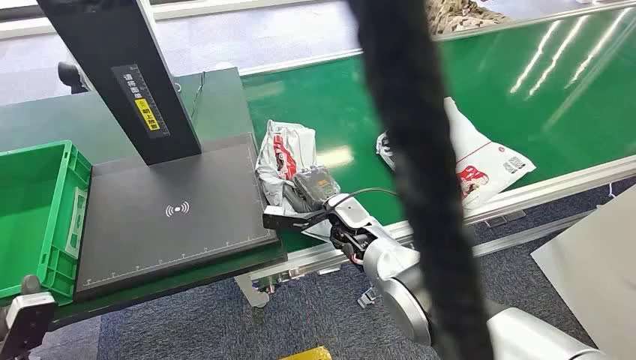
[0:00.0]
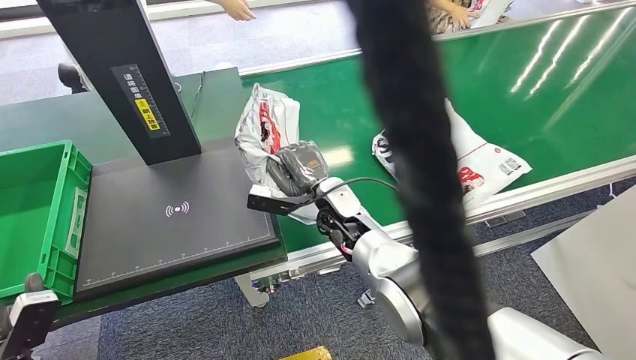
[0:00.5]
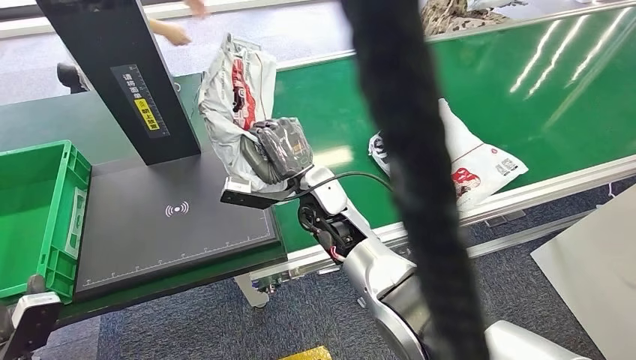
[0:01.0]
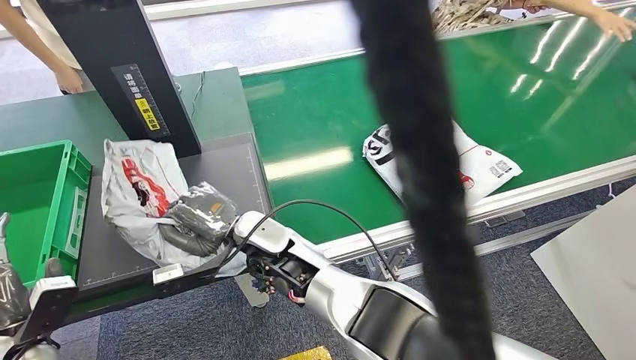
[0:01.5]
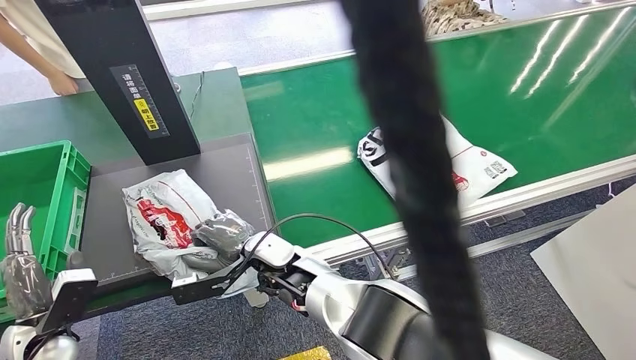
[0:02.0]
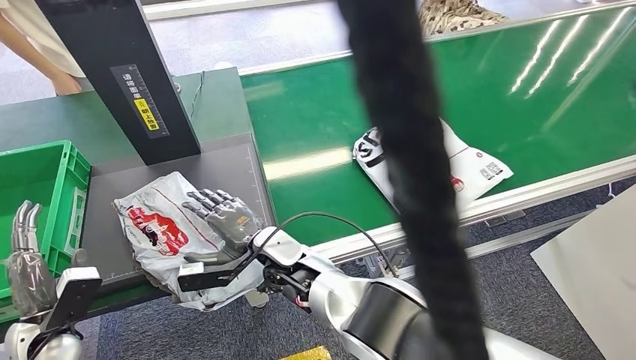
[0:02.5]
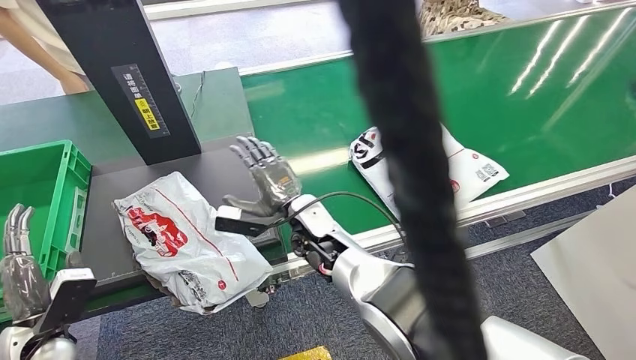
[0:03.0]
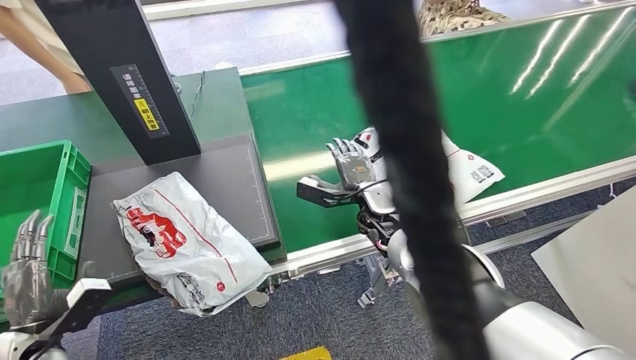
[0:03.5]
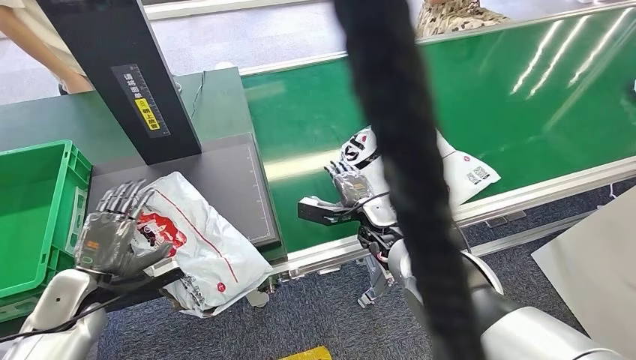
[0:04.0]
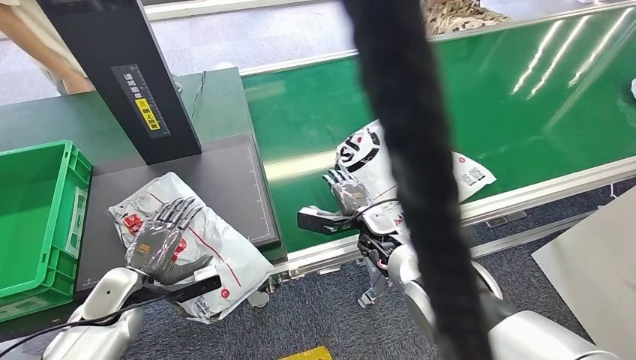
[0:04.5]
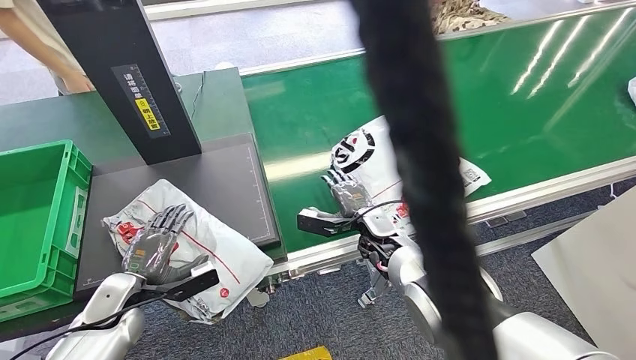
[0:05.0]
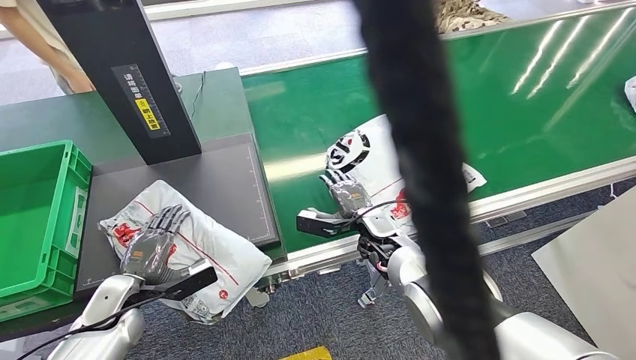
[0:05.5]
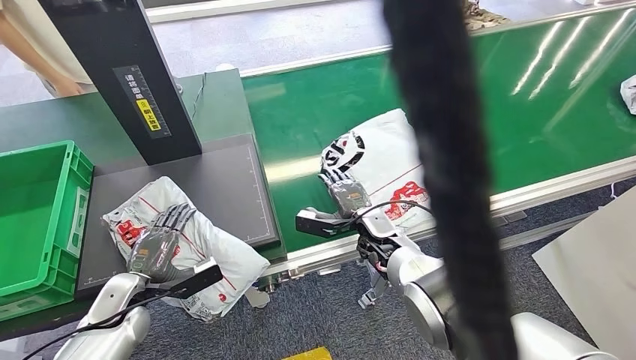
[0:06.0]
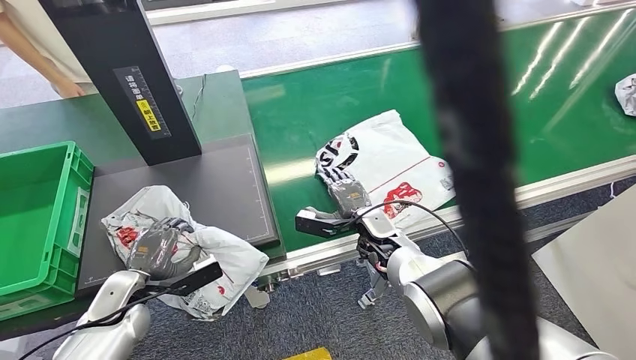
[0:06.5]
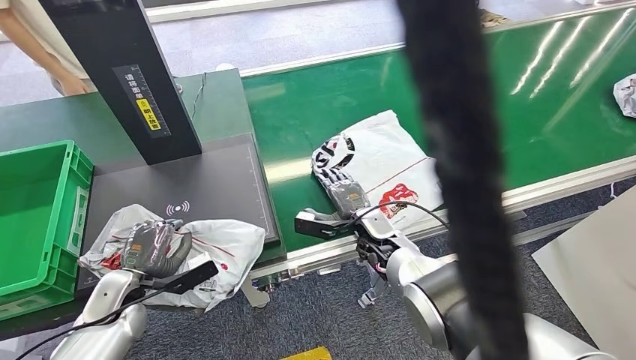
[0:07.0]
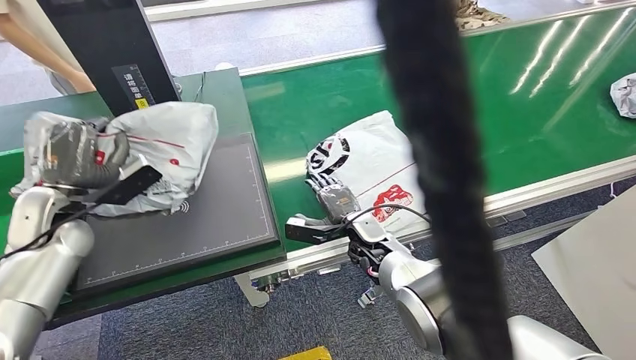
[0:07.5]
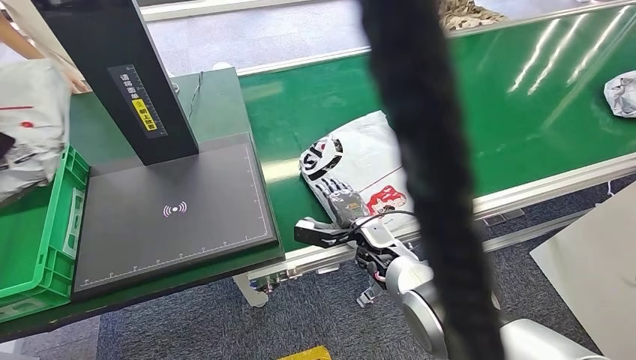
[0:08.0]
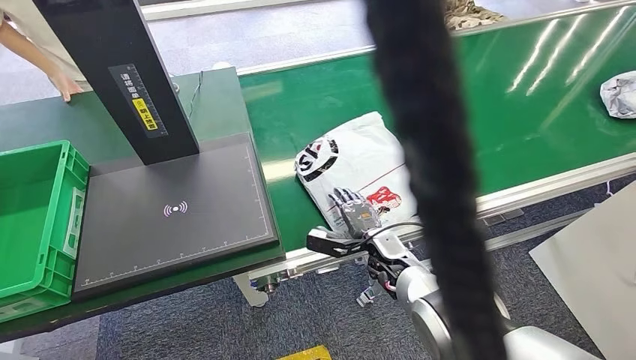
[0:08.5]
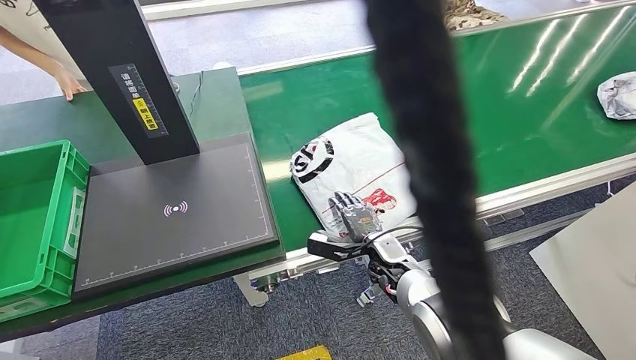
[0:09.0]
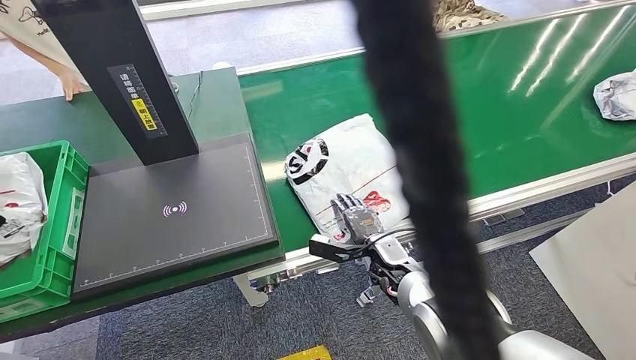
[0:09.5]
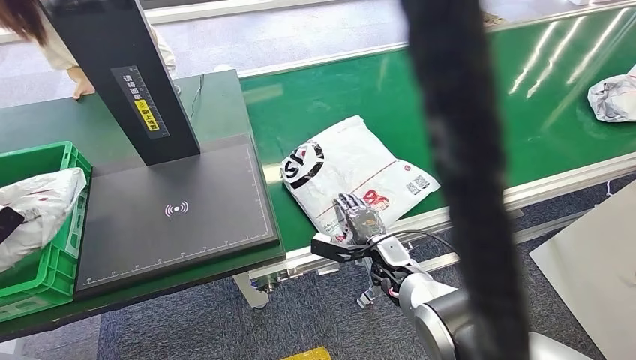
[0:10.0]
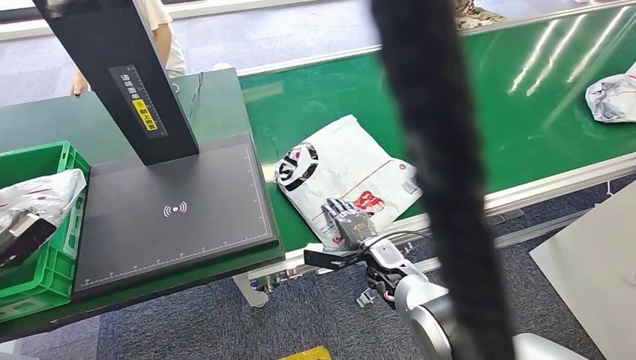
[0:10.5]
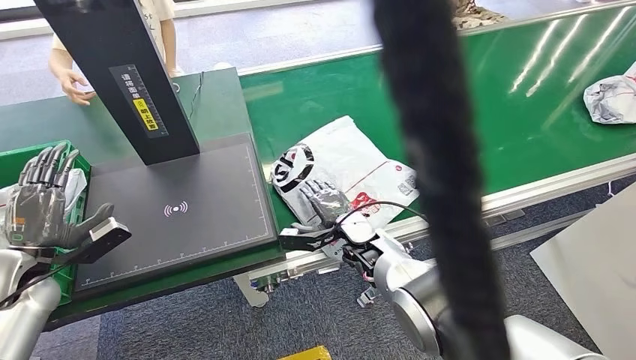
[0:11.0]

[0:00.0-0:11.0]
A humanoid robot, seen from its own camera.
Step, 0:00.0 to 0:01.0: Pick up the package from the conveyor belt.
Step, 0:01.5 to 0:03.0: Place the package onto the inbound machine.
Step, 0:03.5 to 0:07.0: Pick up the package from the inbound machine.
Step, 0:08.0 to 0:09.5: Place the package into the parcel locker.

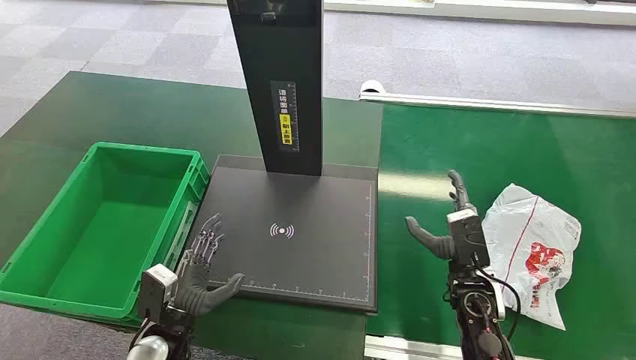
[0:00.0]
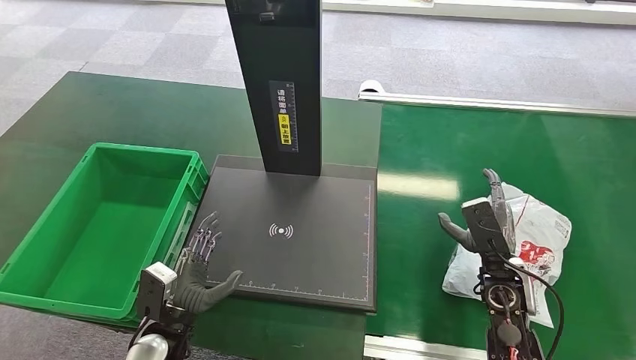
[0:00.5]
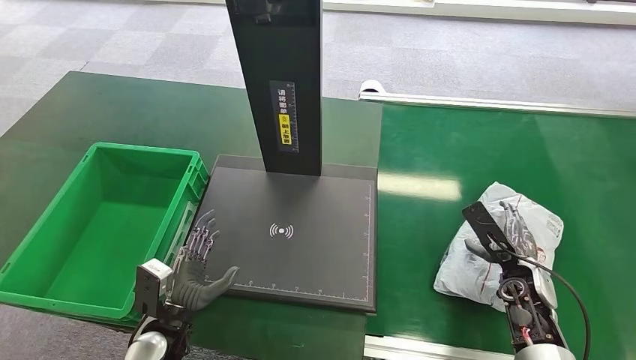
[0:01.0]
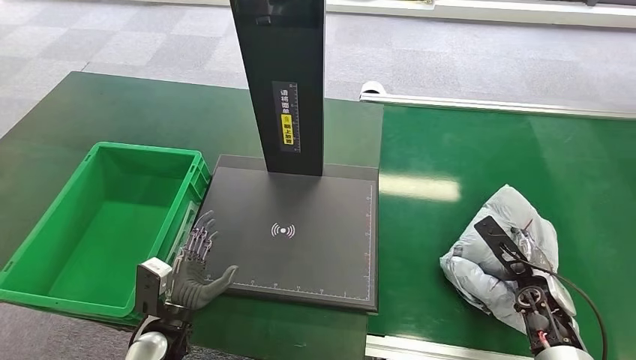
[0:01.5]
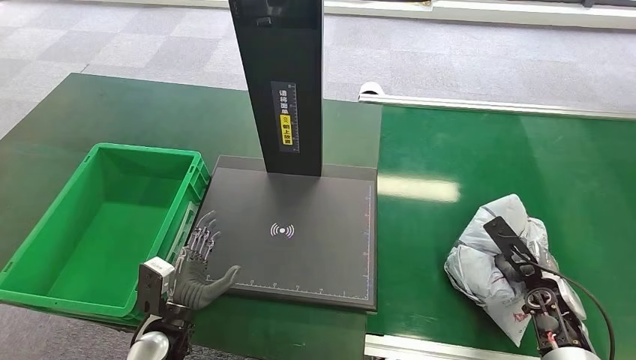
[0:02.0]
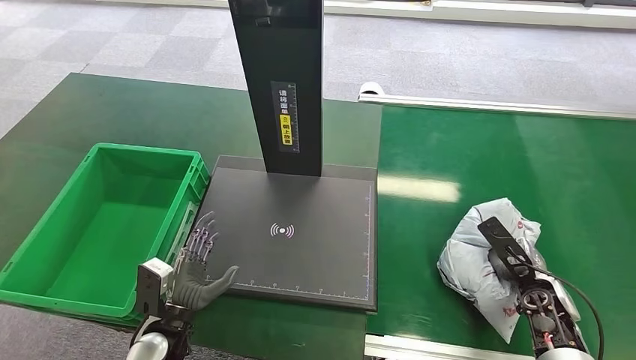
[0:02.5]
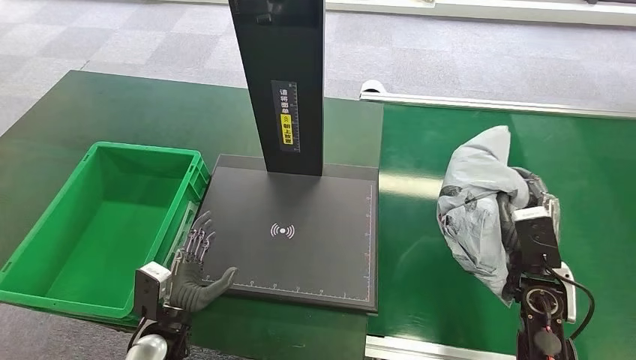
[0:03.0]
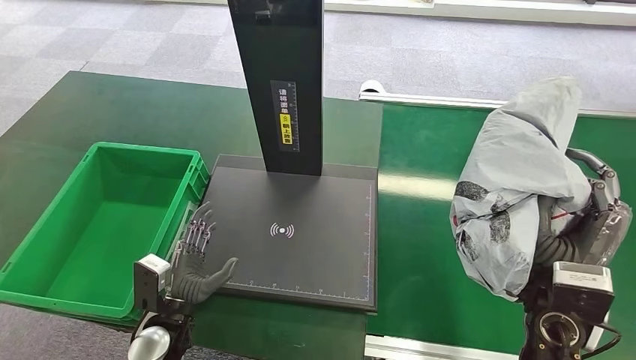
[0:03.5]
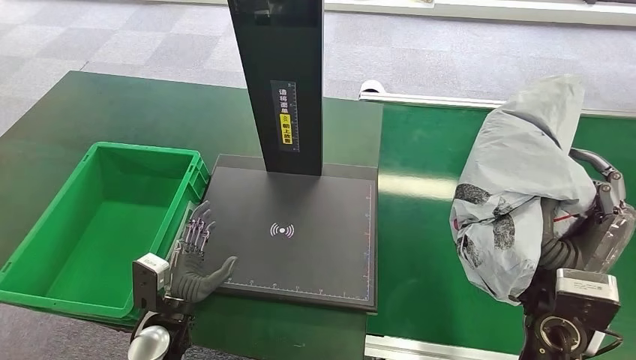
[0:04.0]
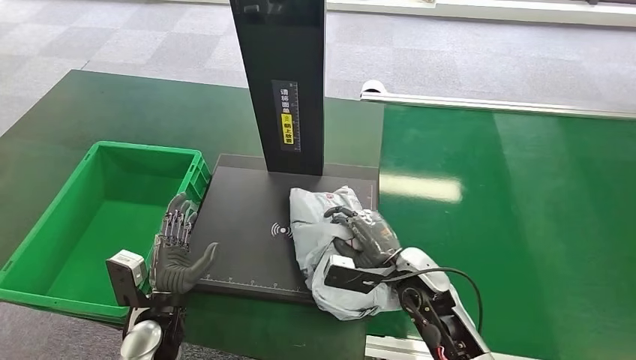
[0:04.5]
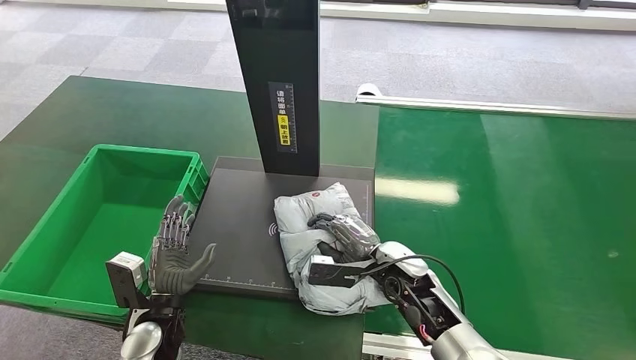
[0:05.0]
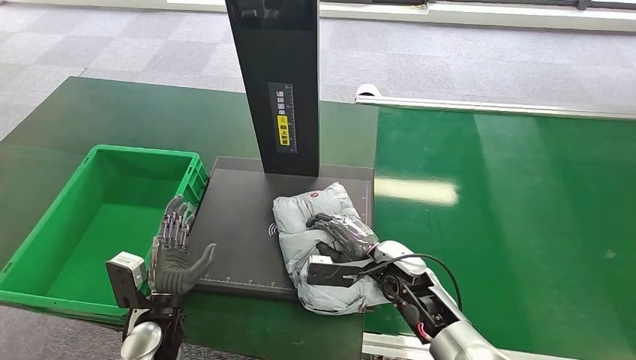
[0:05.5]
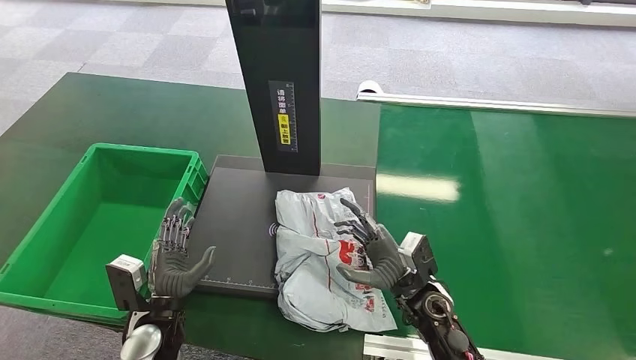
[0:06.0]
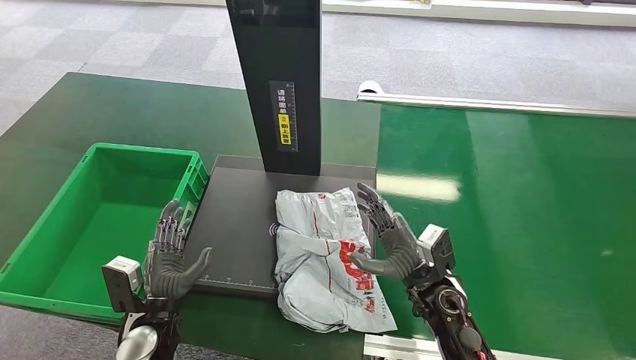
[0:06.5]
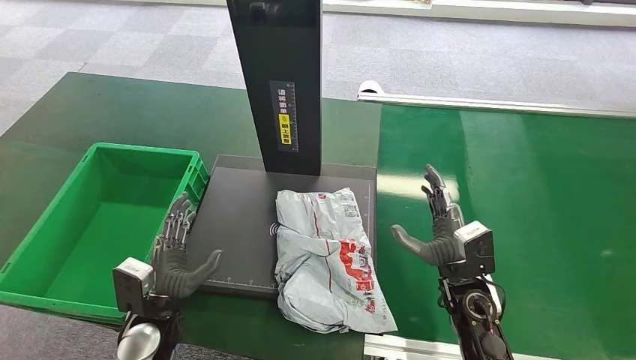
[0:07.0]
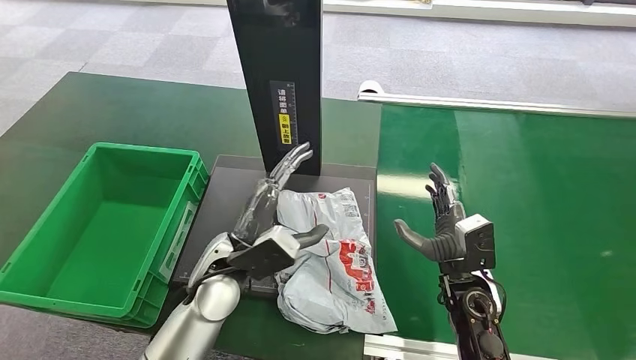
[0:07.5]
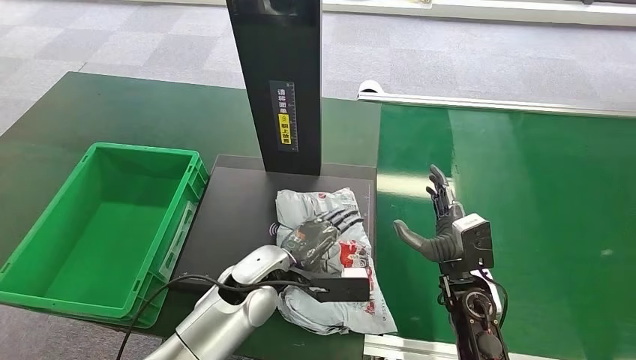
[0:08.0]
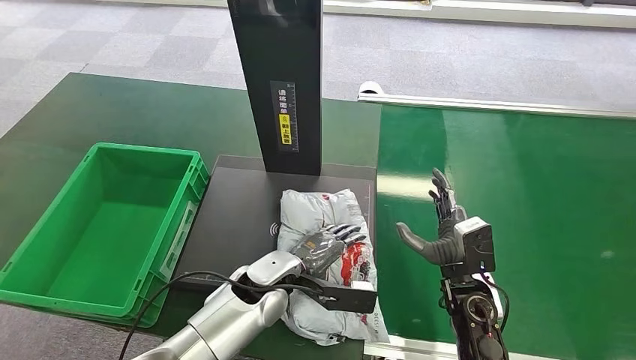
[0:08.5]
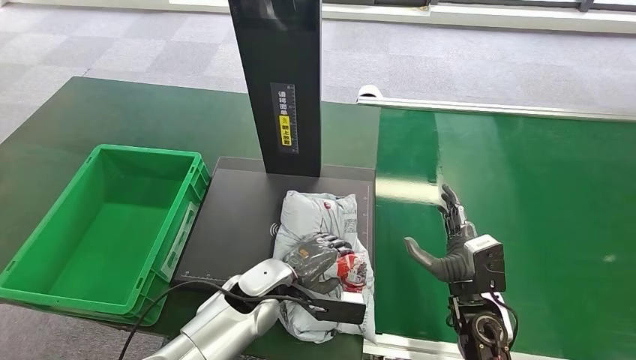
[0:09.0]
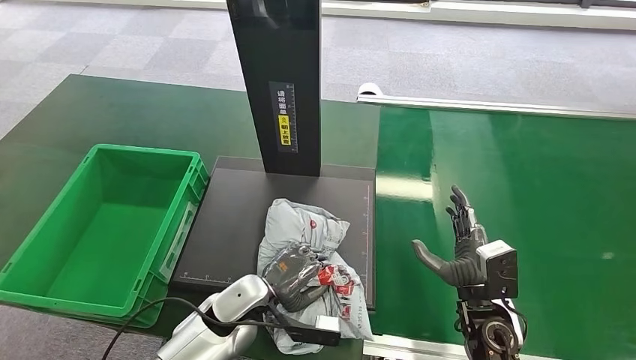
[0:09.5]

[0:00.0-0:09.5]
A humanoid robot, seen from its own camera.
Step, 0:00.0 to 0:03.0: Pick up the package from the conveyor belt.
Step, 0:03.5 to 0:06.5: Place the package onto the inbound machine.
